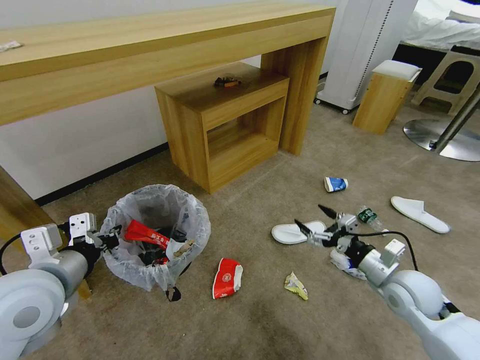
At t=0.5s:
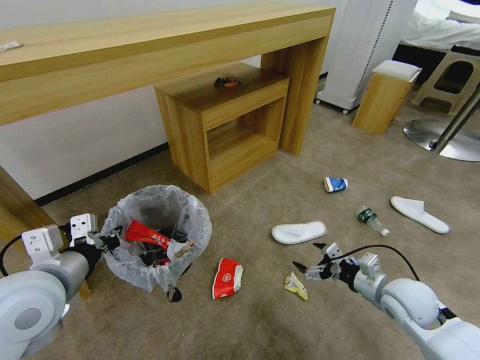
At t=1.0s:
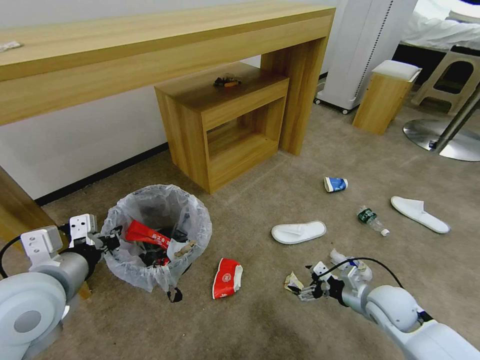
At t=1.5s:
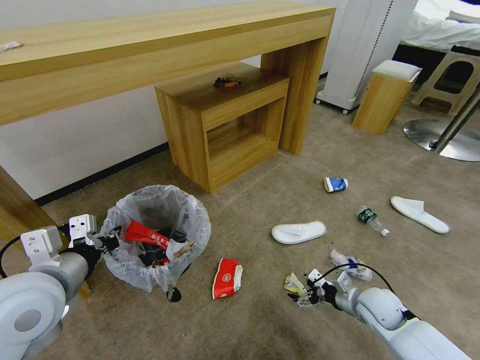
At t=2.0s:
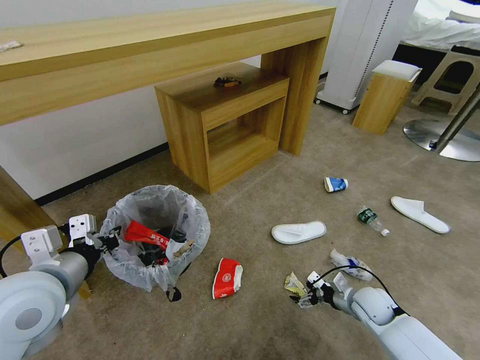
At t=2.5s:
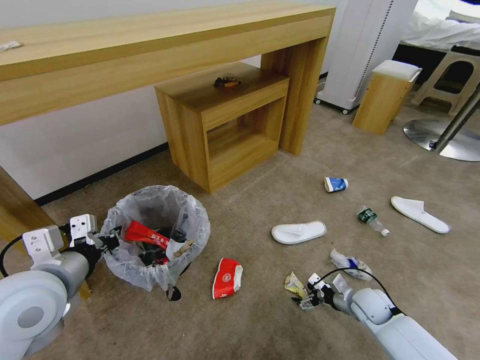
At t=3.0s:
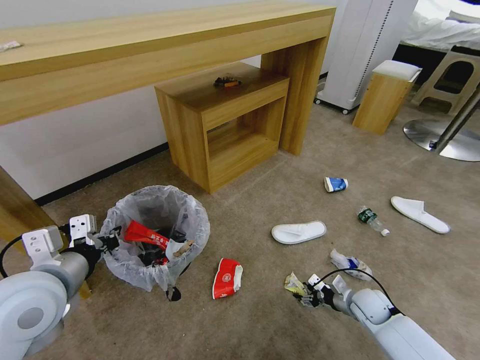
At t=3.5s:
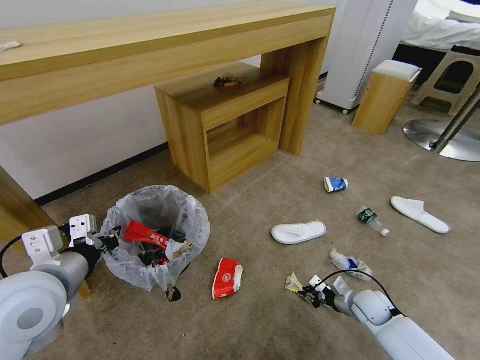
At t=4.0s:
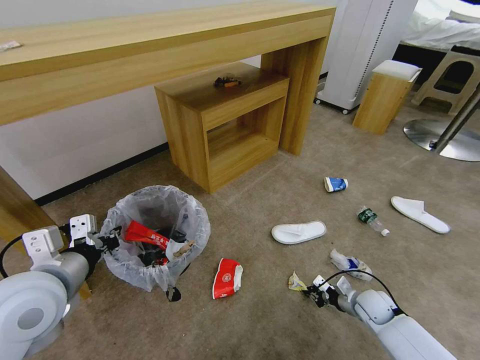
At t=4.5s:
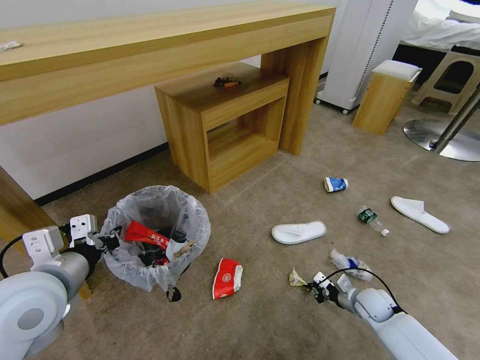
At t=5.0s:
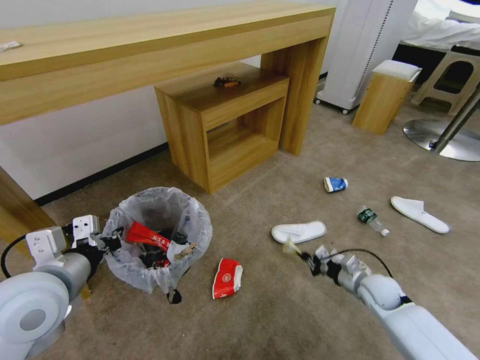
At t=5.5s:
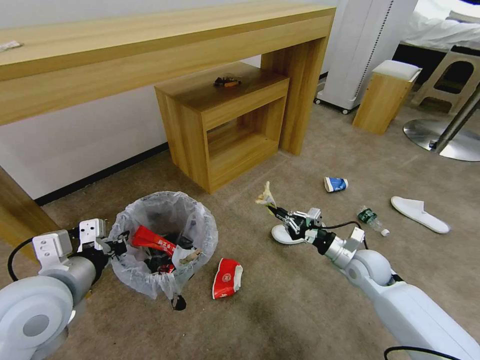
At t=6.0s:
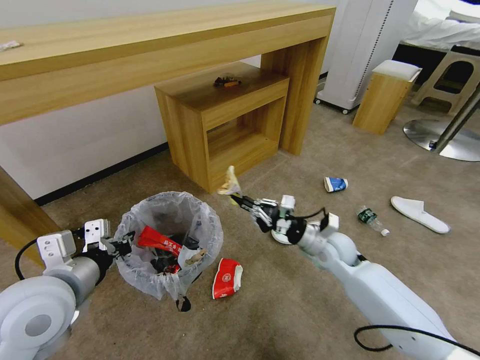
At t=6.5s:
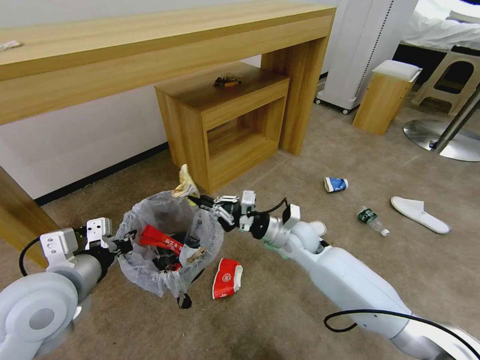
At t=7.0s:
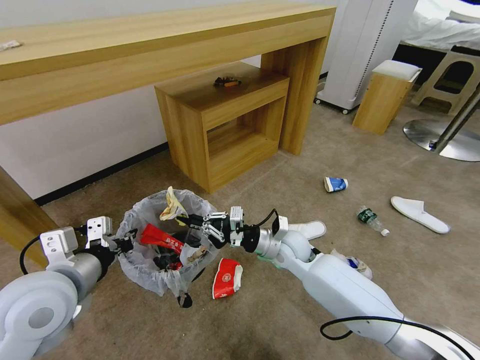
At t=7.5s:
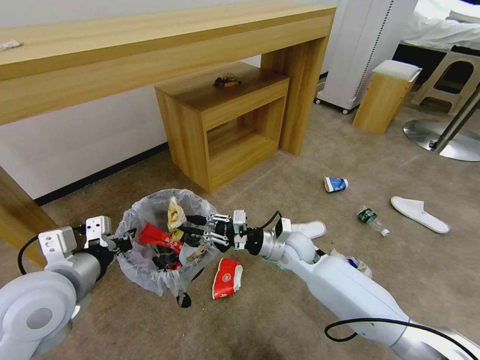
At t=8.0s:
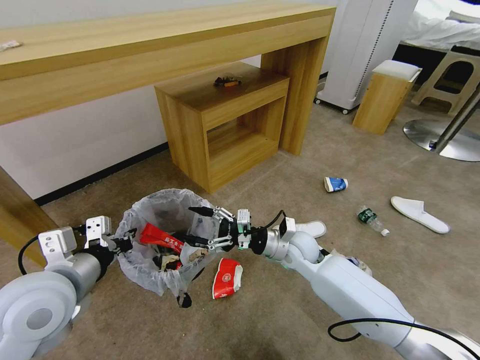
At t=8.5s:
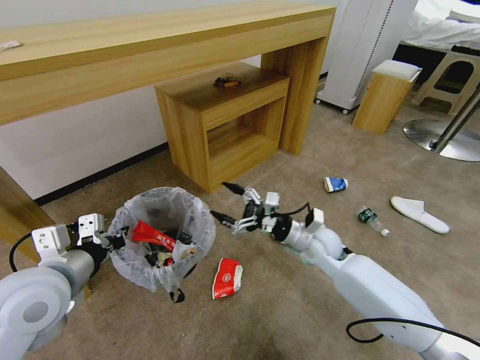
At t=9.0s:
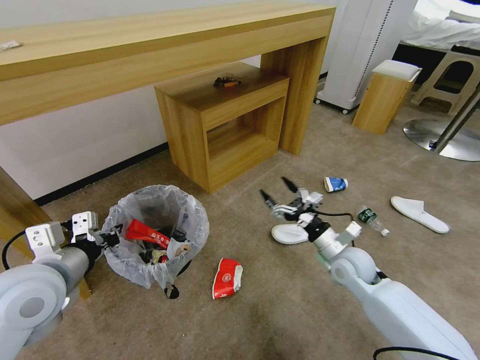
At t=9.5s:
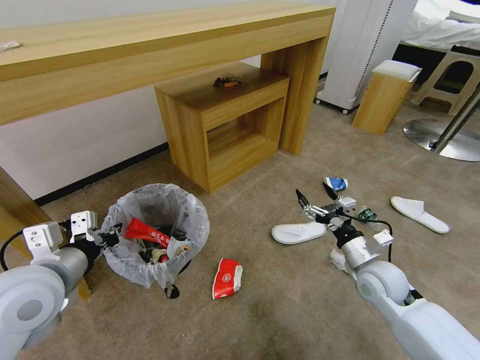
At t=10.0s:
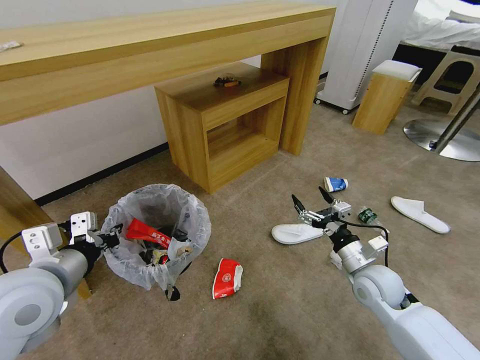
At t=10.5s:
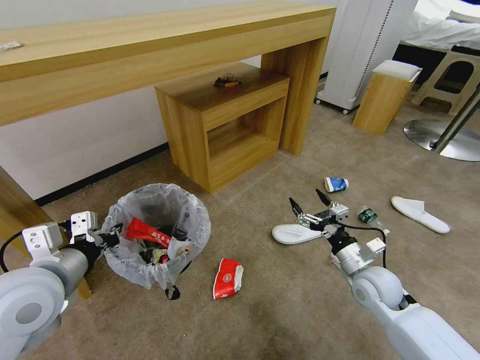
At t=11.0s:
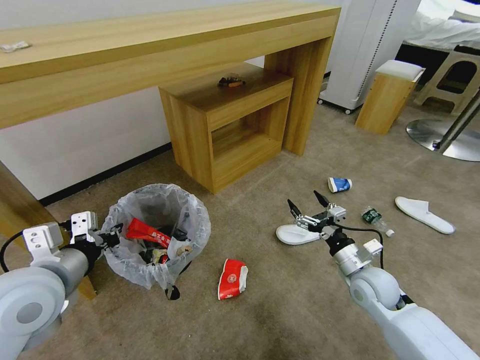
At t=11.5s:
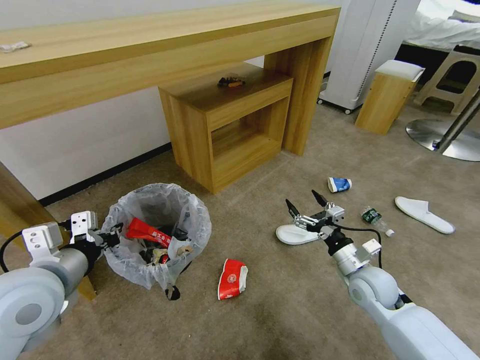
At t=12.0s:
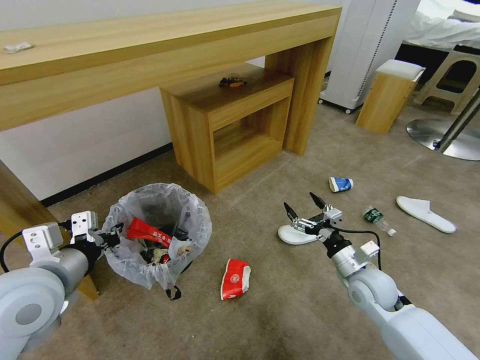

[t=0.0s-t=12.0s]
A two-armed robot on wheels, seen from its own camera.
Task of the whole recording: Pick up the trash bin and place the garbage on the floor into it.
t=0.0s to t=2.0s: The right gripper shifts approximately 15 cm downward.
t=2.0s to t=4.0s: The right gripper closes up.
t=4.0s to t=6.0s: The right gripper travels upward, to the left and forward by about 25 cm.
t=6.0s to t=8.0s: The right gripper goes roughly 10 cm to the left, and opens up.
t=8.0s to t=10.0s: The right gripper shifts some 20 cm to the right and backward.
t=10.0s to t=12.0s: The grippers move only a little.

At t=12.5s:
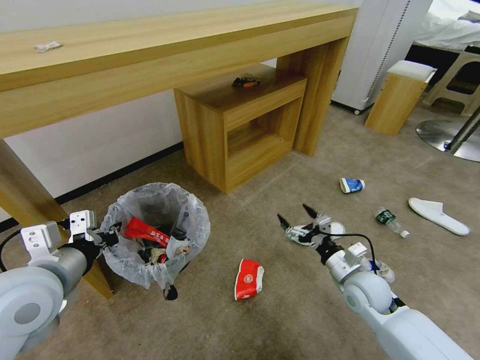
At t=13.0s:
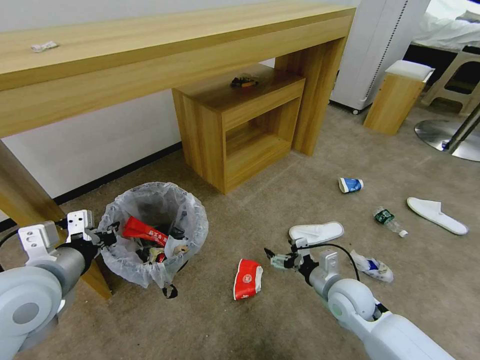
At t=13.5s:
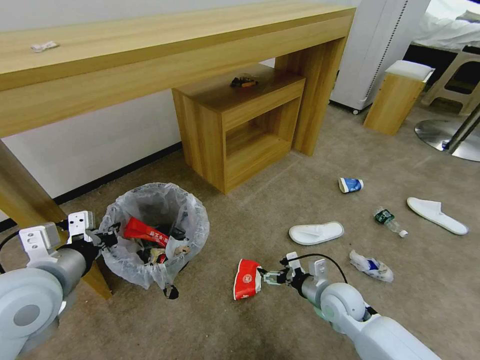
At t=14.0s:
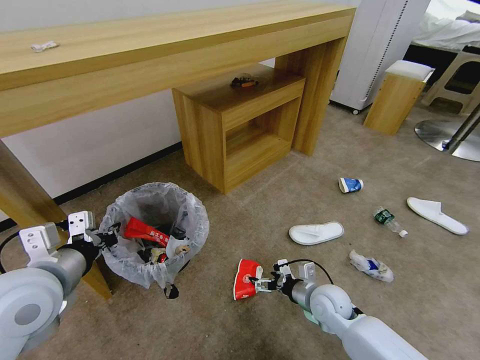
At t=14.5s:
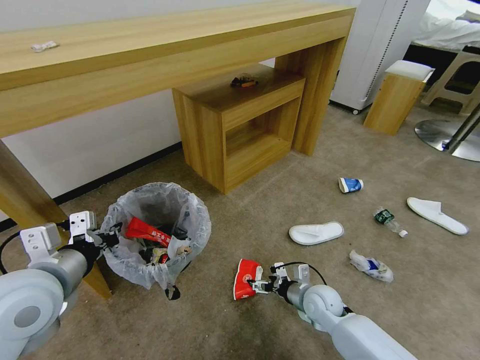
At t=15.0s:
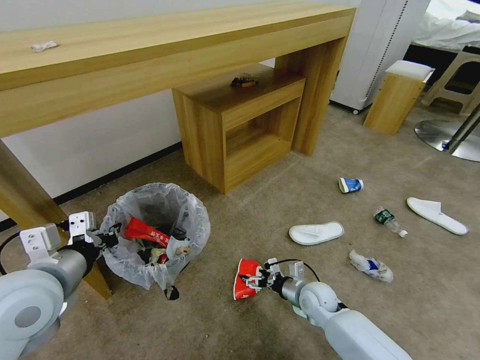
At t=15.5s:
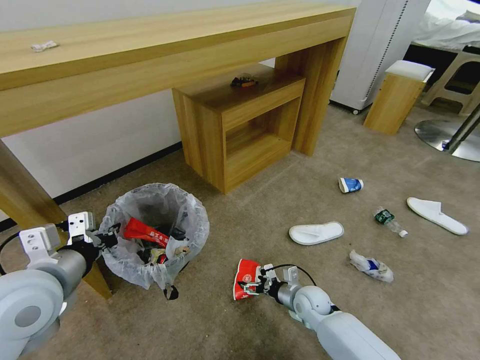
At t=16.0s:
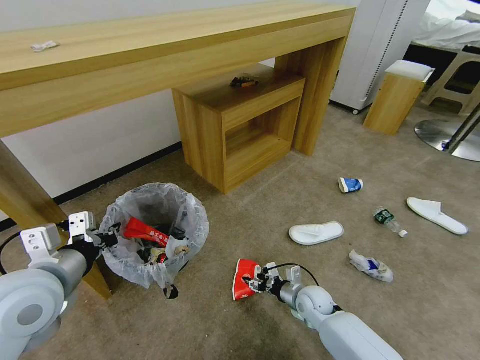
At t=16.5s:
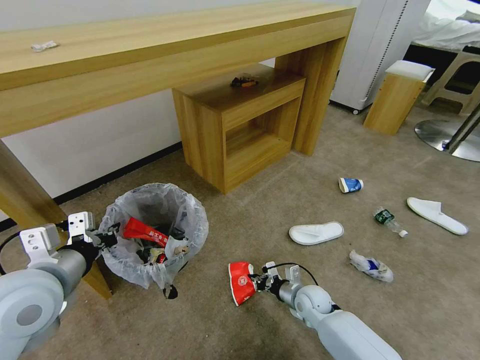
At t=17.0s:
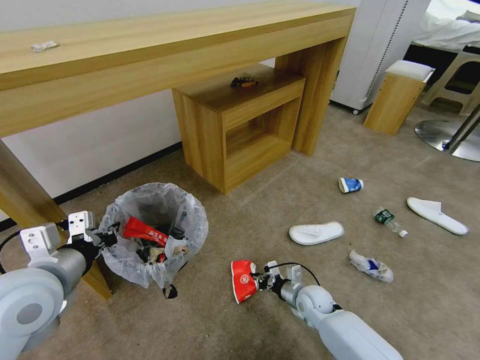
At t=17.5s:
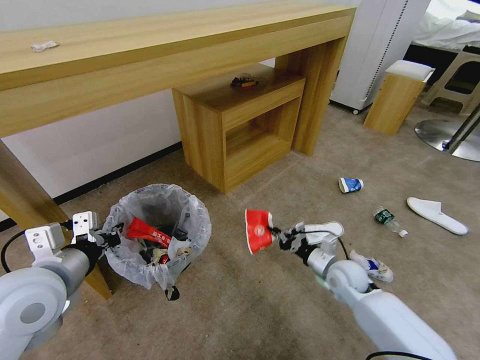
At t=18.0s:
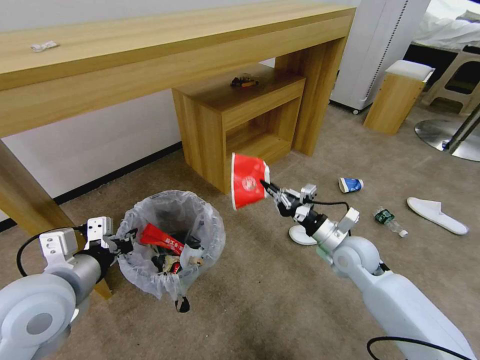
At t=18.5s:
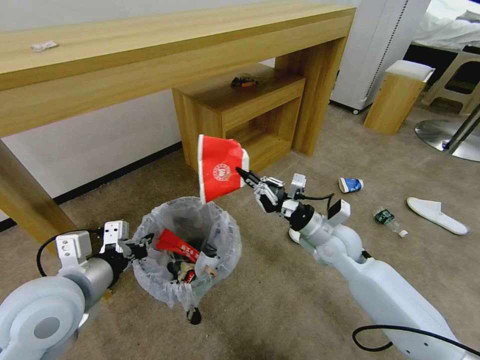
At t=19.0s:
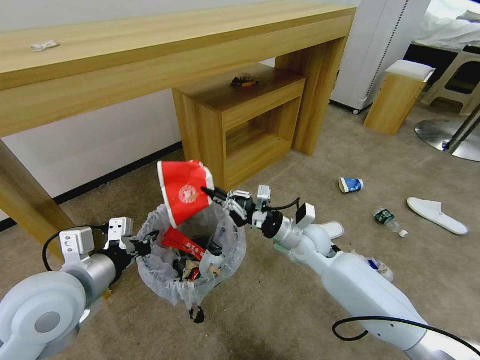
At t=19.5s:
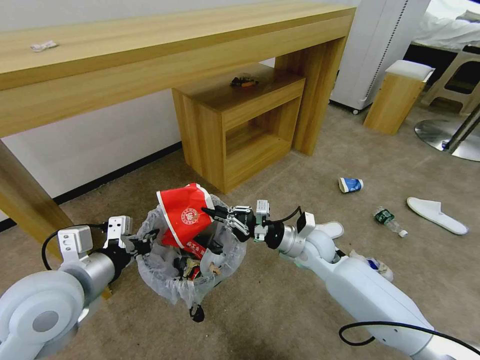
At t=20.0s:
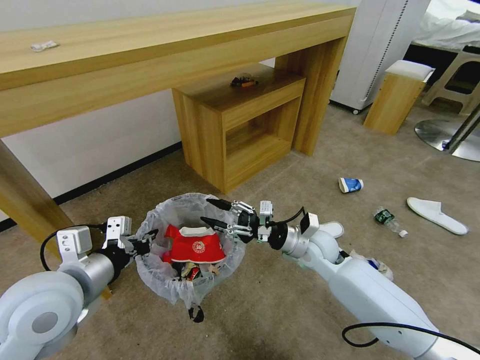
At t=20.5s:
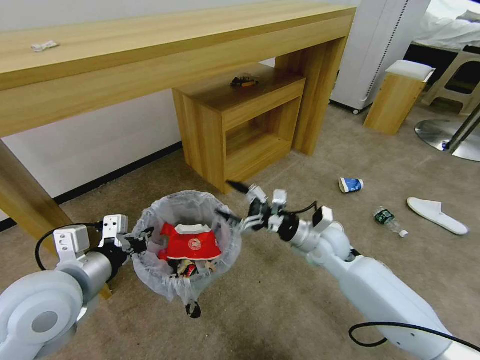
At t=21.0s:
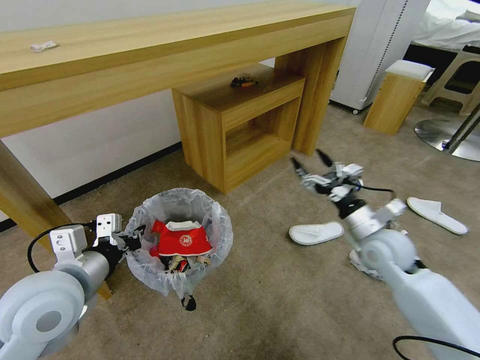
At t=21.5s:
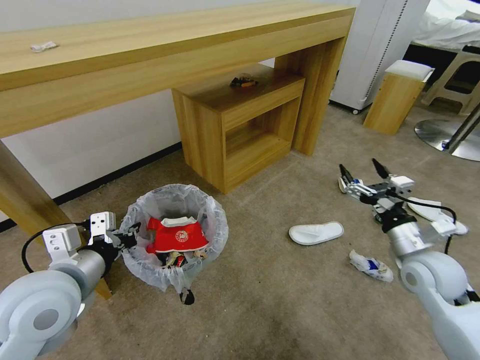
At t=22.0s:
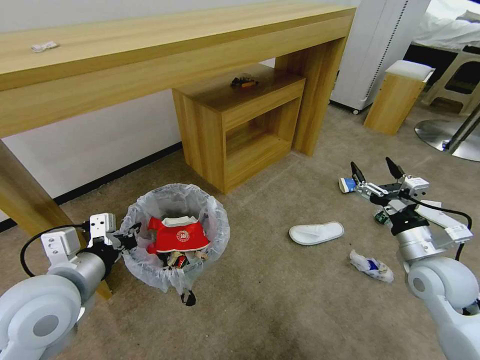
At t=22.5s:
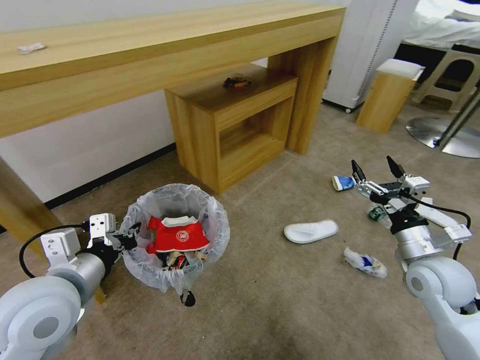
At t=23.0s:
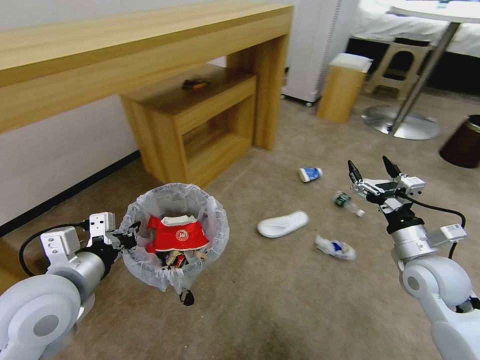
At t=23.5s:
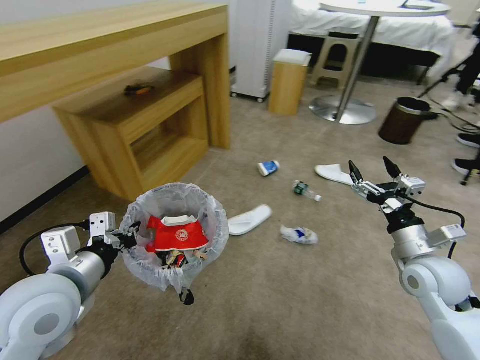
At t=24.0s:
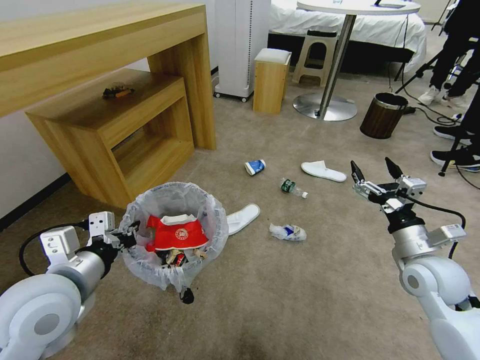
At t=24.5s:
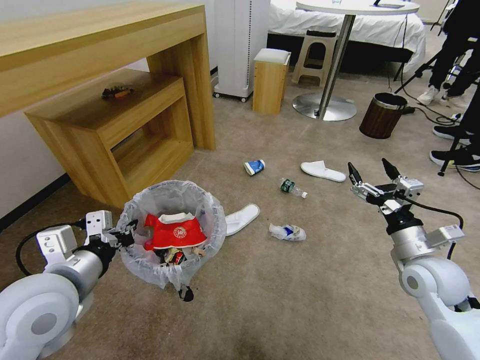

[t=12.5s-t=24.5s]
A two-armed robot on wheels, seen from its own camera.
Task of the whole recording: Pick up the trash bin and place the garbage on the floor into it.
t=12.5s to t=14.5s: The right gripper moves downward and to the left, some 10 cm.
t=14.5s to t=16.5s: The right gripper ends up approximately 5 cm from where it was, and closes its fingers.
t=16.5s to t=18.5s: The right gripper goes some 25 cm upward.
t=18.5s to t=20.5s: The right gripper opens up.
t=20.5s to t=22.5s: The right gripper shifts roughly 20 cm to the right and backward.

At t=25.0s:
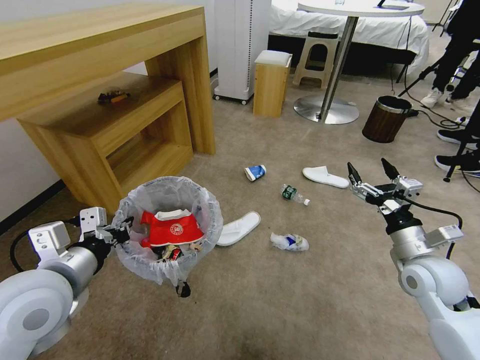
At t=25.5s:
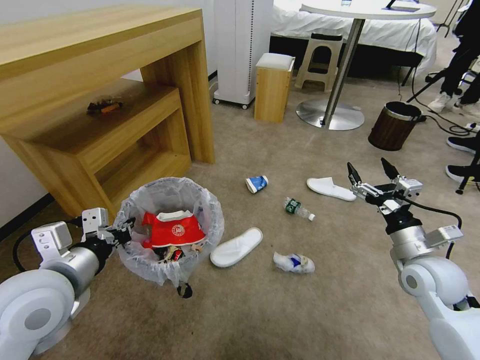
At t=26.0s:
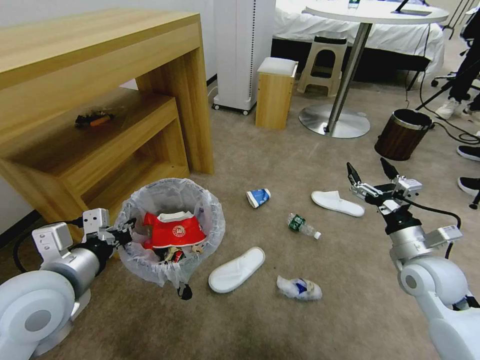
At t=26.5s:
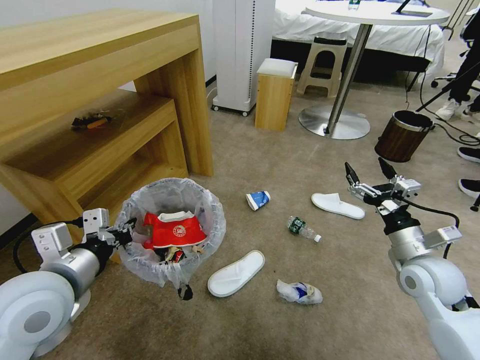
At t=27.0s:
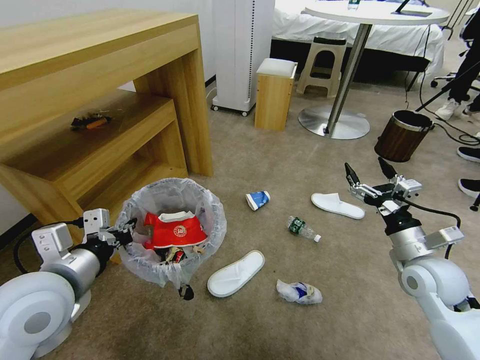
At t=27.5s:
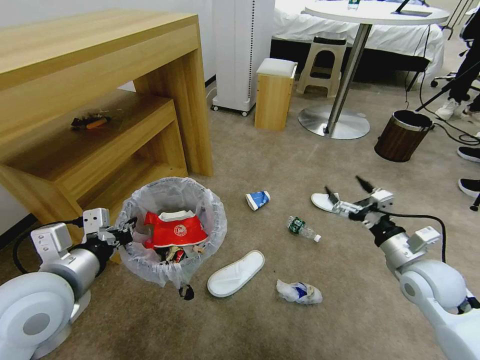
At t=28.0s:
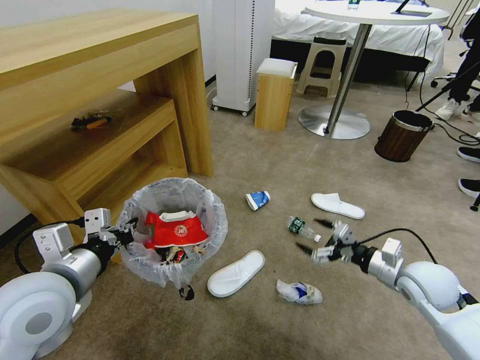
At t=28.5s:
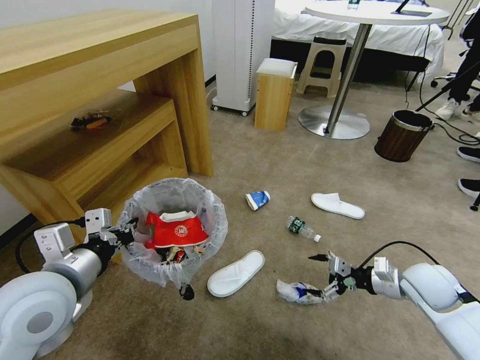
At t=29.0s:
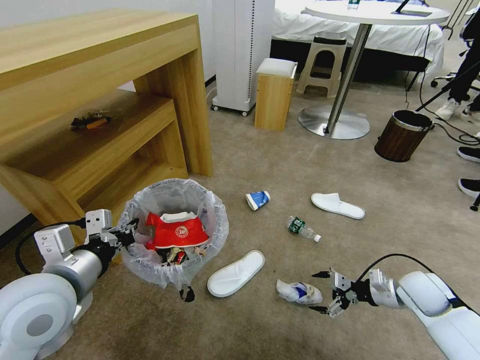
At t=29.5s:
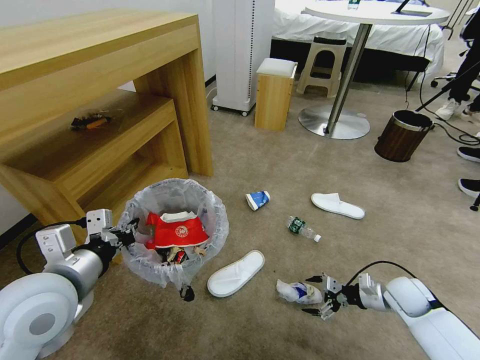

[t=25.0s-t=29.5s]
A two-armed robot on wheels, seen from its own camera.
Task of the whole recording: Pick up the trash bin and place the garbage on the floor into it.
t=27.0s to t=29.5s: The right gripper moves downward, about 15 cm.